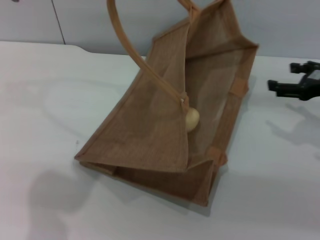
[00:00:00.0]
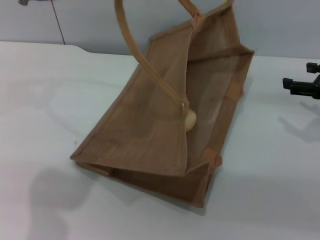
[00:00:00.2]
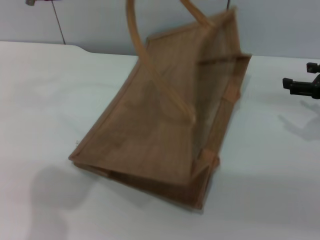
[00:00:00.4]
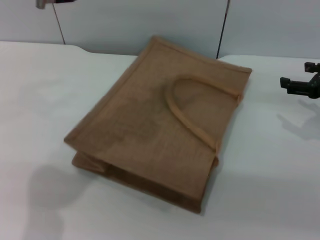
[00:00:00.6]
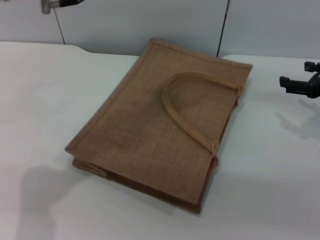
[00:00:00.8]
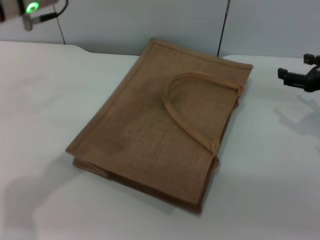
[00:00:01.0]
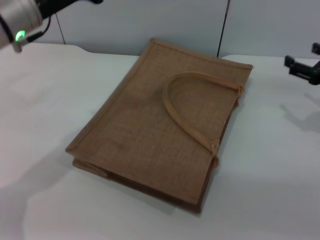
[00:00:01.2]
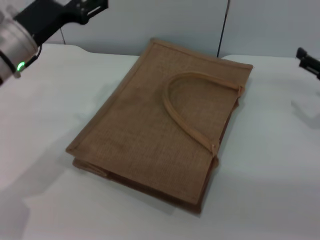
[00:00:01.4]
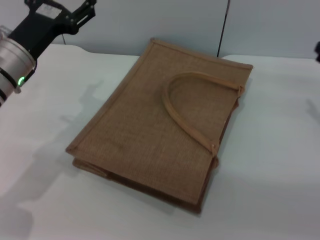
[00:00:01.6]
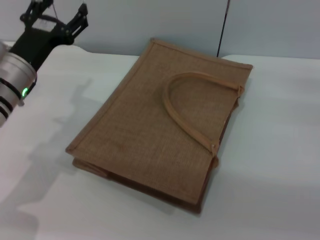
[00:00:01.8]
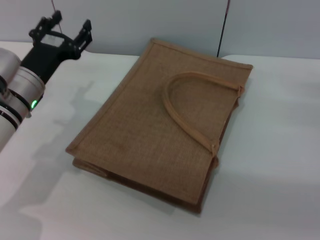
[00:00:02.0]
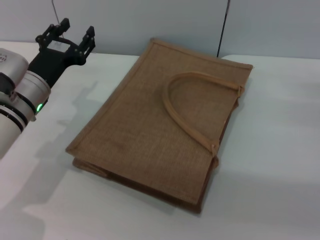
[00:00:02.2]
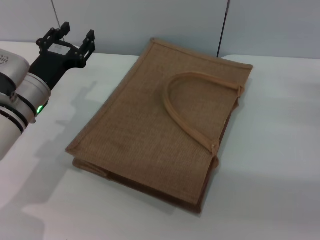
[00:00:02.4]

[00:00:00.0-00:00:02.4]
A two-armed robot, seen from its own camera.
Task of the whole recording: pick up the egg yolk pastry from the table and place it in the brown handbag.
Step, 00:00:00.0 to 00:00:00.6: Lower the woven bag with the left gripper to close it.
00:00:00.0 to 00:00:01.2: The left gripper goes some 10 cm downward and to the left, and opens its fingers.
00:00:01.2 to 00:00:02.4: The right gripper moves downward, about 5 cm. Meanwhile the left gripper heads downward, covering some 15 cm.
